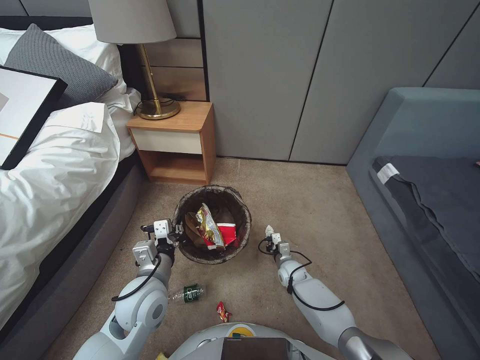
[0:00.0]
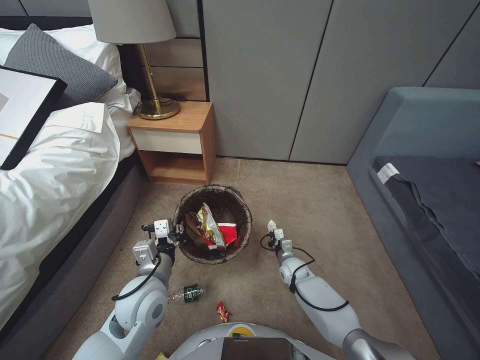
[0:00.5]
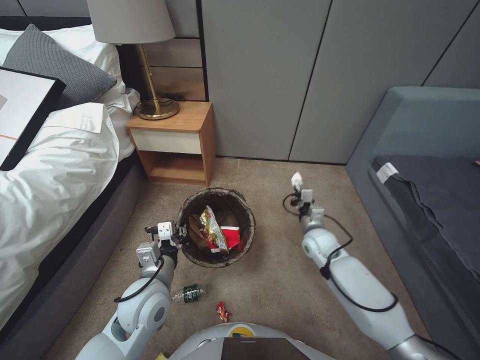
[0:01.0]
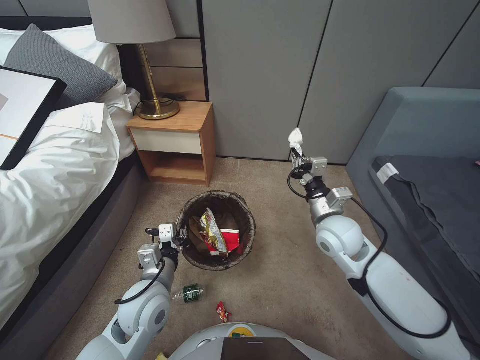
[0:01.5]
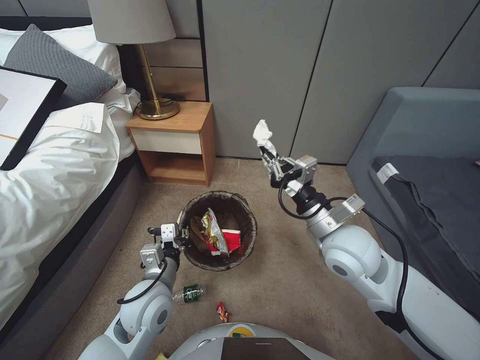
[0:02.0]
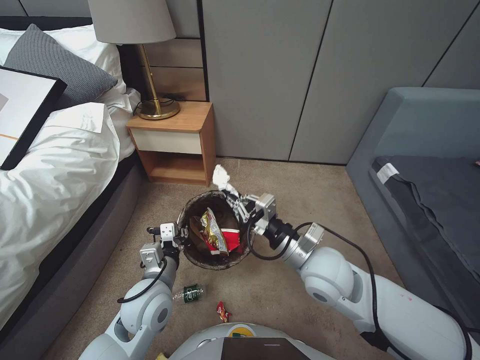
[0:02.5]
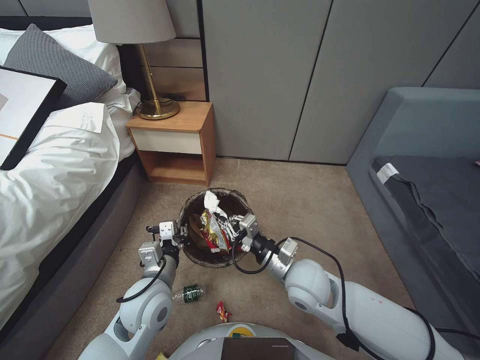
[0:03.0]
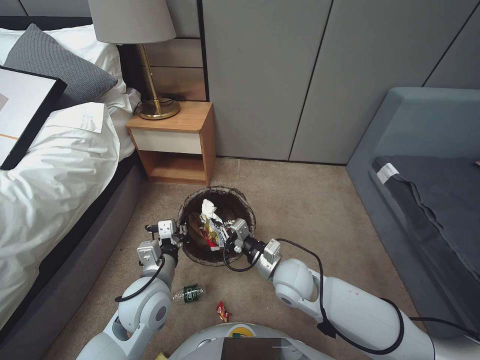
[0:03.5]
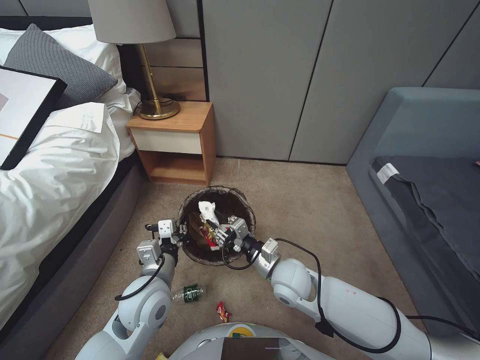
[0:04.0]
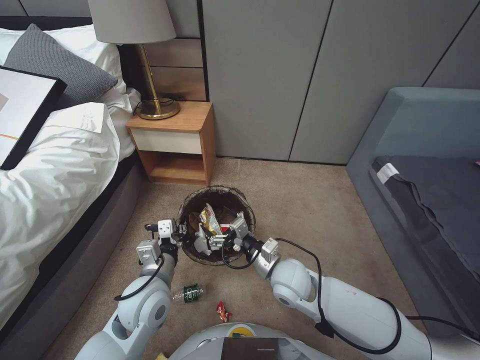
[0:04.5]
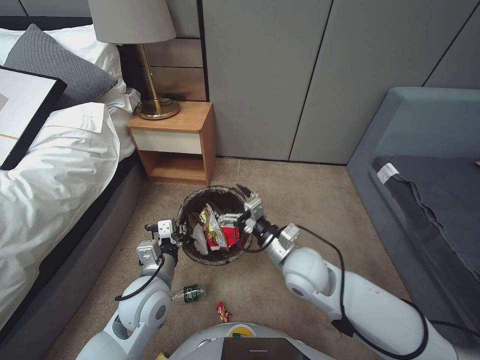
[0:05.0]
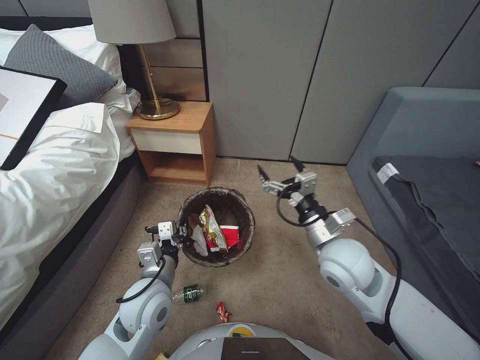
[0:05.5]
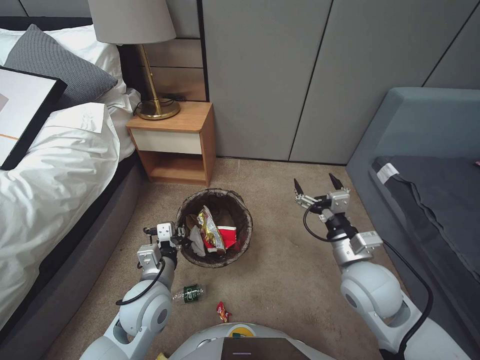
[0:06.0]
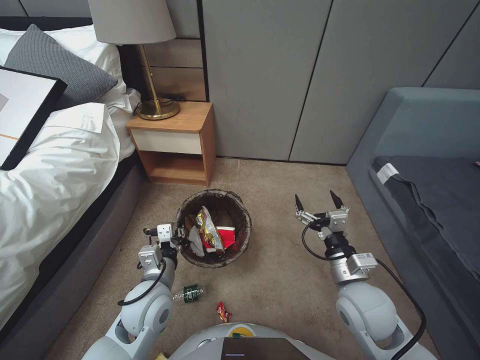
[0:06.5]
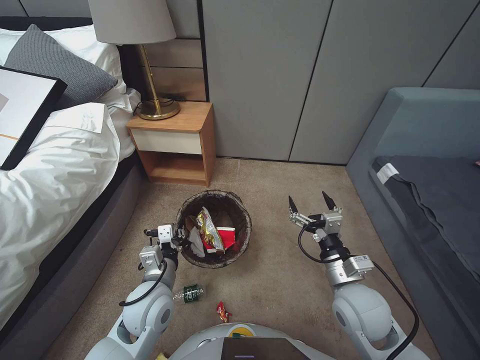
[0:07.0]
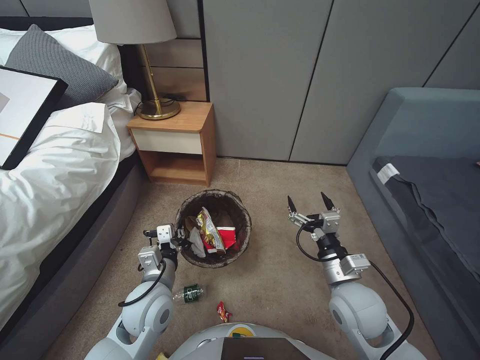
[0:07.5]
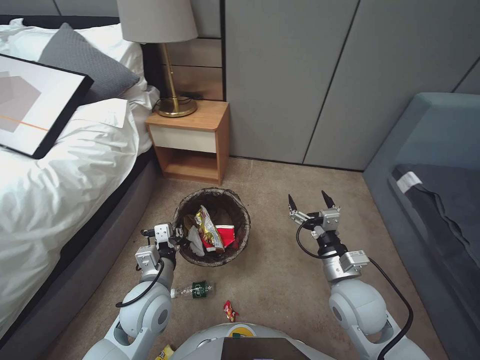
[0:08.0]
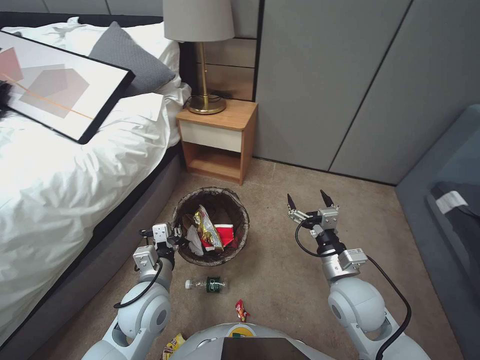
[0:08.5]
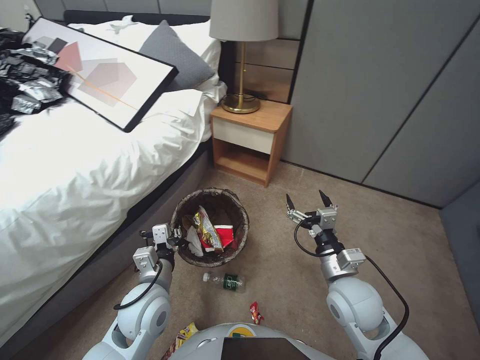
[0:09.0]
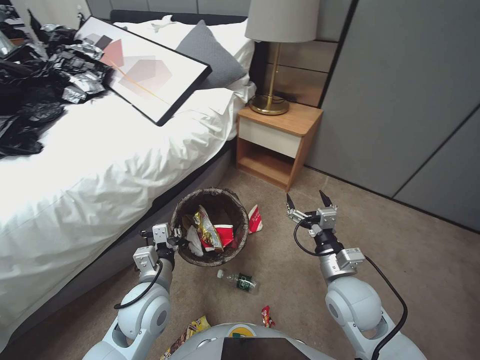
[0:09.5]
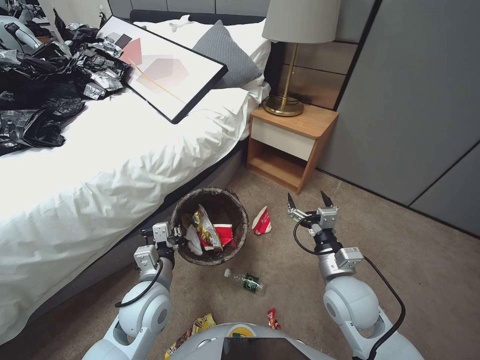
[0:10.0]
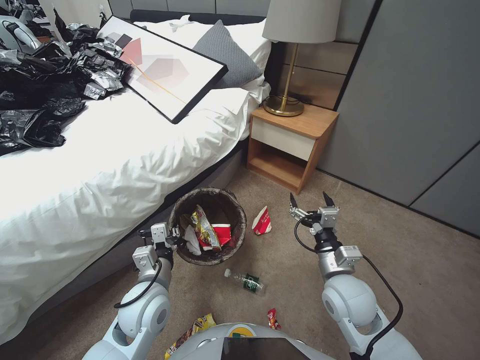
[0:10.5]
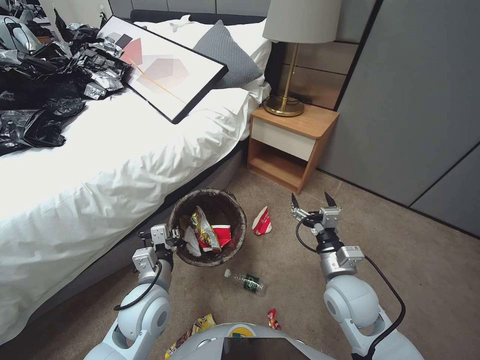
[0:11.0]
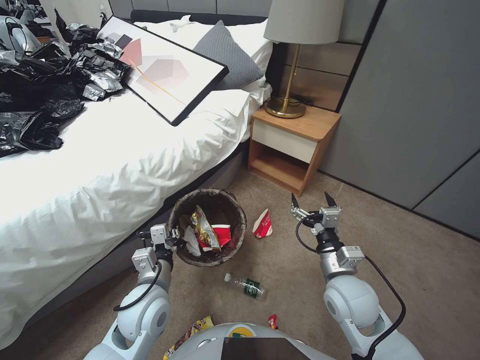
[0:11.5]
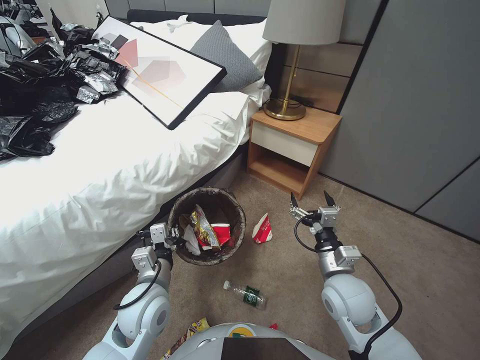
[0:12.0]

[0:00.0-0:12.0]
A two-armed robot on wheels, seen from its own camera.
Task of the whole recording: Pick up the trash bin, then pick up the garbage from the floor and place it into the trash bin.
0:00.0 to 0:02.0: The right gripper is displaced upward by approximately 40 cm.
0:02.0 to 0:04.0: The right gripper travels downward and to the left by approximately 20 cm.
0:04.0 to 0:06.0: The right gripper shifts roughly 15 cm to the right and upward, and opens.
0:06.0 to 0:08.0: The right gripper is displaced downward by about 5 cm.
0:10.0 to 0:12.0: Both grippers stay about where they are.

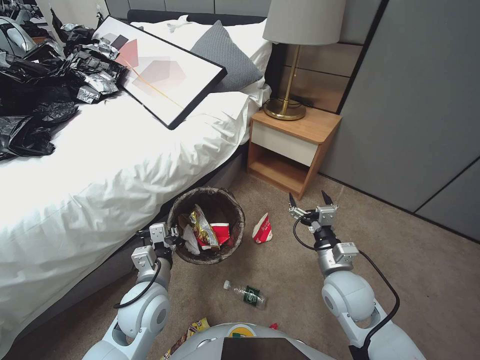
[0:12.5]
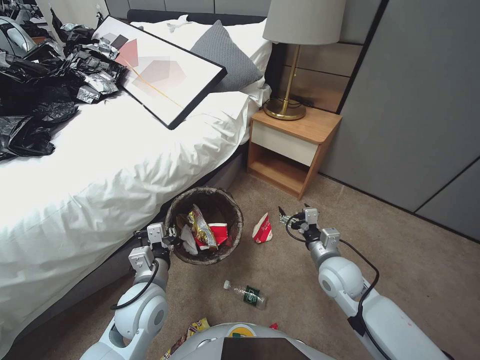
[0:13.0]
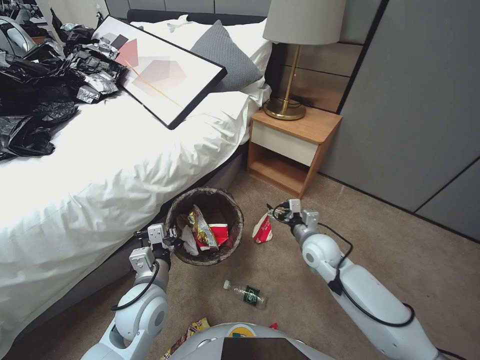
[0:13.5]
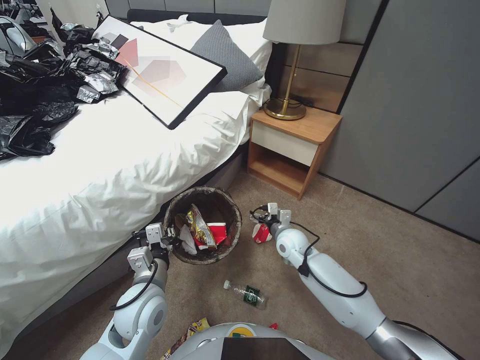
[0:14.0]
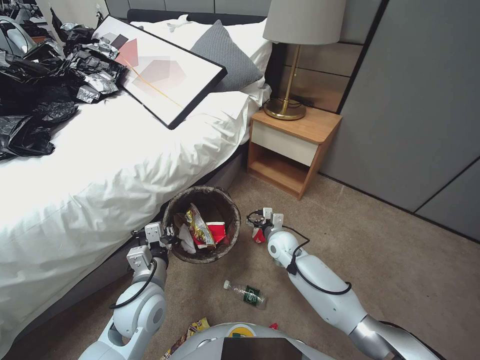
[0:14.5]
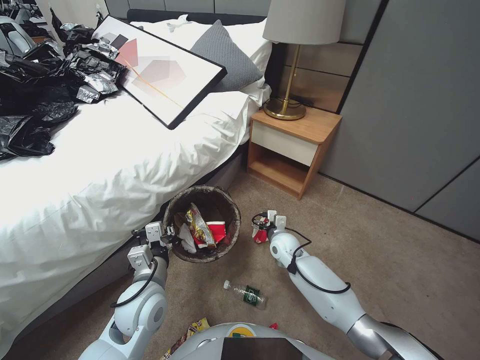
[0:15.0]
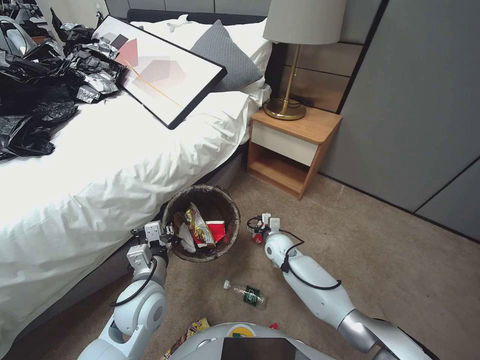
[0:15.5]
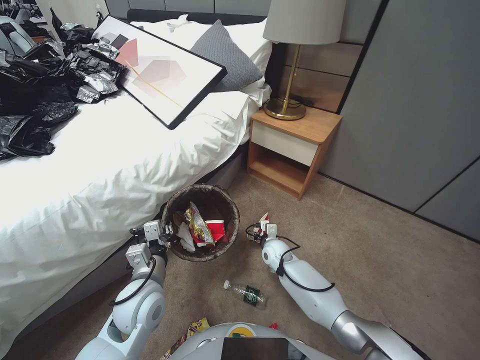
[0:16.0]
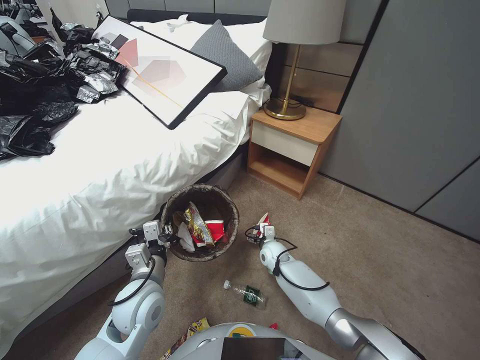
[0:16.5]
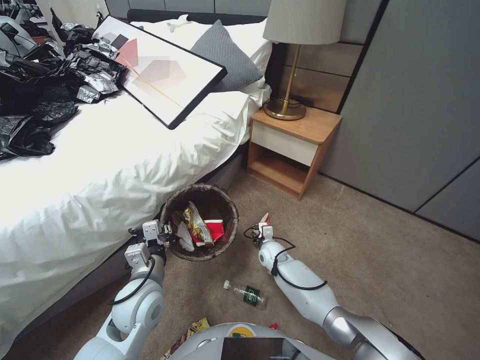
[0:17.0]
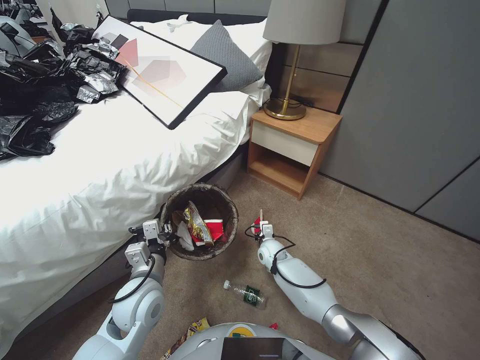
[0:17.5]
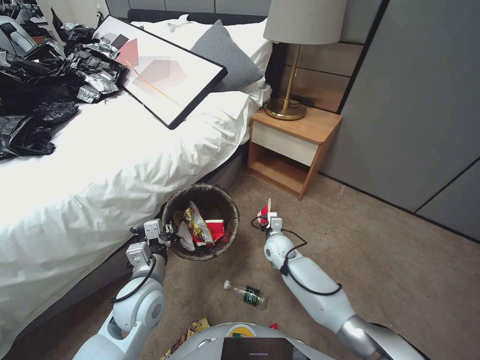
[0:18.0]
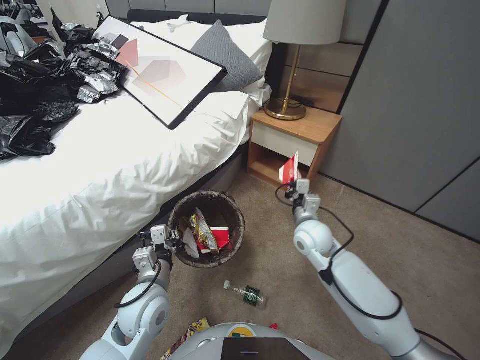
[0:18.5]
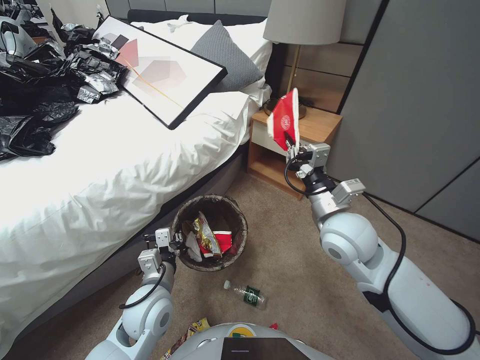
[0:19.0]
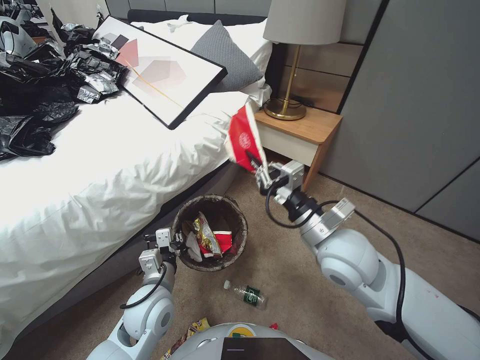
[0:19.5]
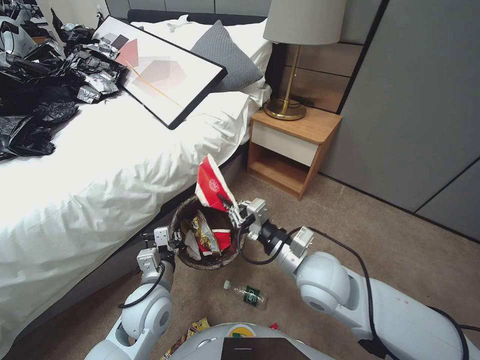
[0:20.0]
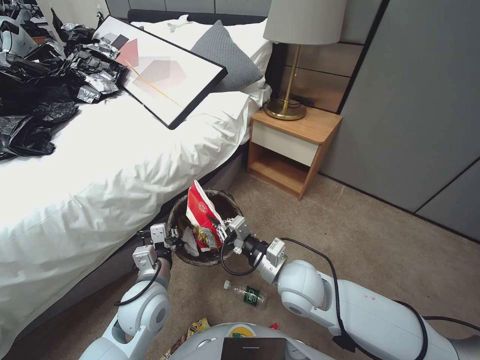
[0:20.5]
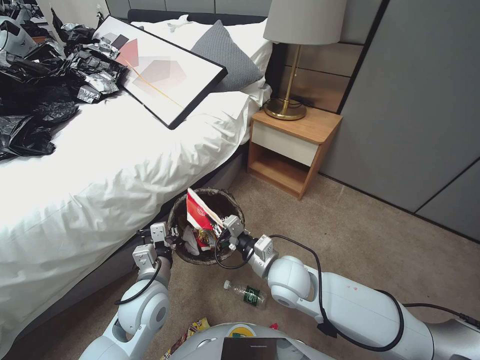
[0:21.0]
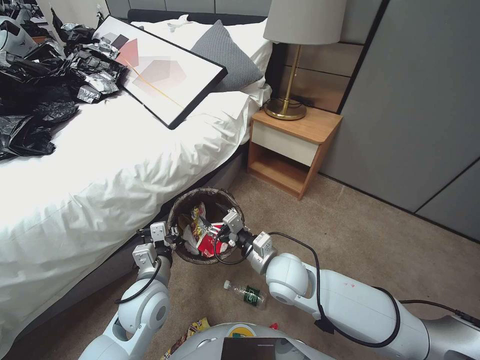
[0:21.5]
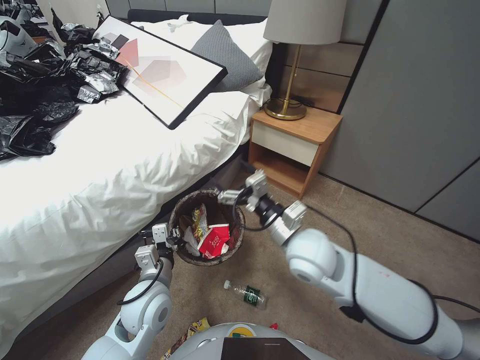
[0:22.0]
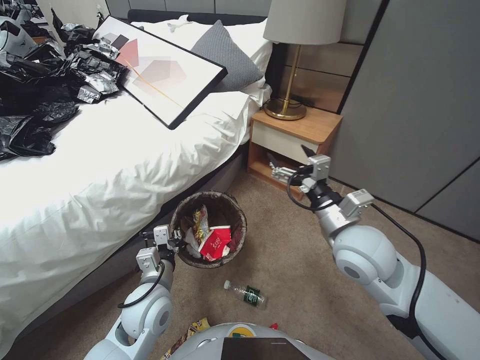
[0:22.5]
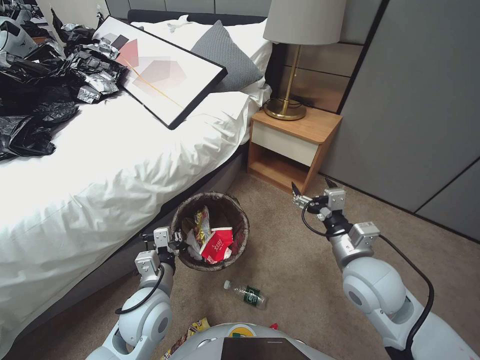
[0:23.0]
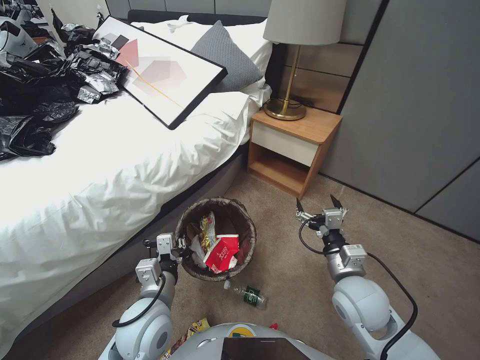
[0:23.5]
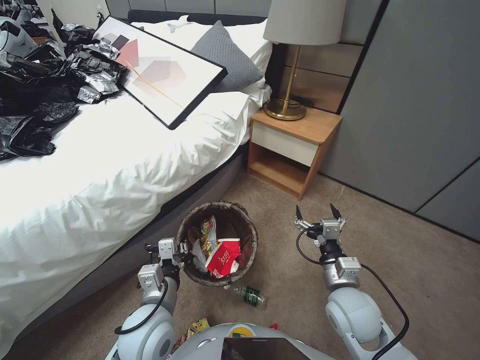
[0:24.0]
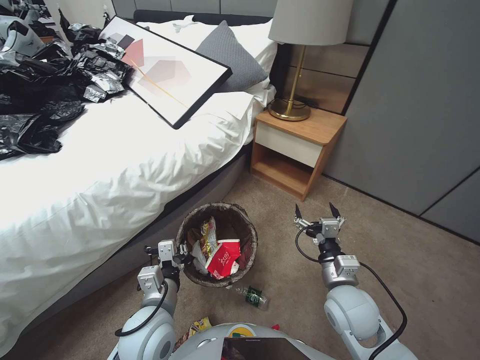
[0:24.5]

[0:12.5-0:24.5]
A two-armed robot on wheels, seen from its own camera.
Task of the whole recording: Pick up the trash bin, then pick up the garbage from the floor and place it into the trash bin.
0:12.5 to 0:14.5: The right gripper moves forward, downward and to the left, roughly 20 cm.
0:14.5 to 0:16.5: The right gripper heads downward, covering roughly 10 cm.
0:16.5 to 0:18.5: The right gripper heads upward, covering roughly 15 cm, and closes.
0:18.5 to 0:20.5: The right gripper heads backward, upward and to the left, covering some 20 cm.
0:20.5 to 0:22.5: The right gripper shifts roughly 10 cm upward and to the right, and opens.
0:22.5 to 0:24.5: The right gripper heads downward and backward, covering approximately 15 cm, while the left gripper shifts by approximately 5 cm.

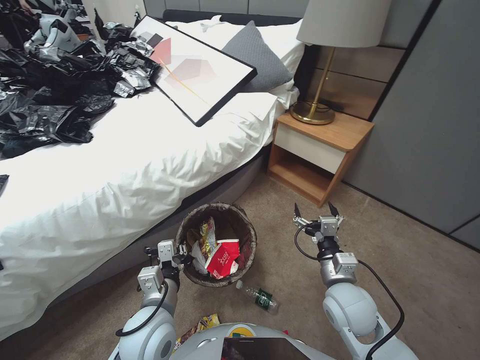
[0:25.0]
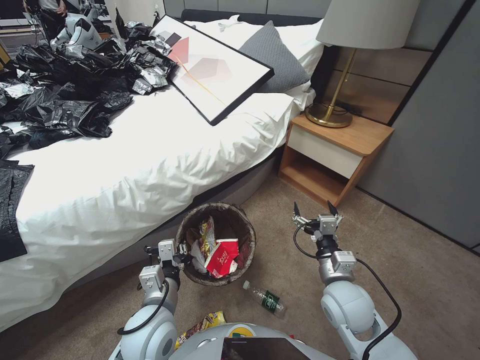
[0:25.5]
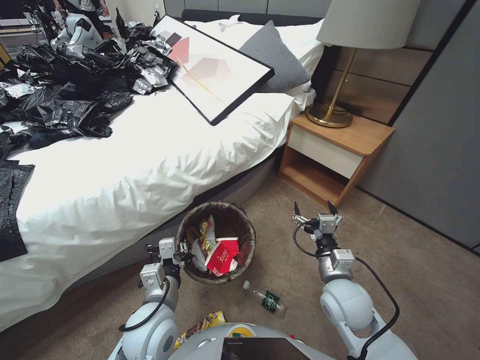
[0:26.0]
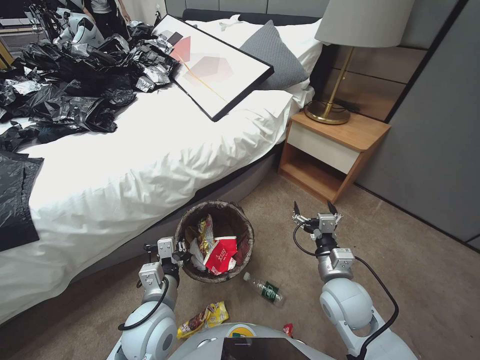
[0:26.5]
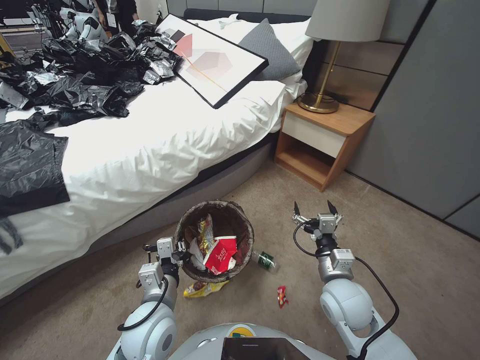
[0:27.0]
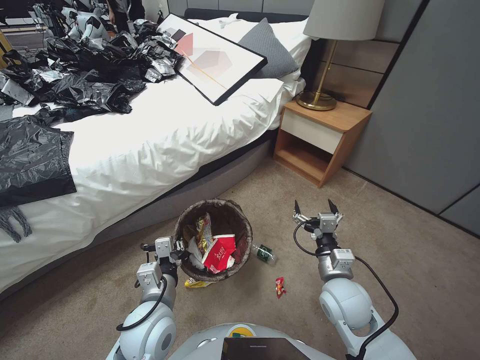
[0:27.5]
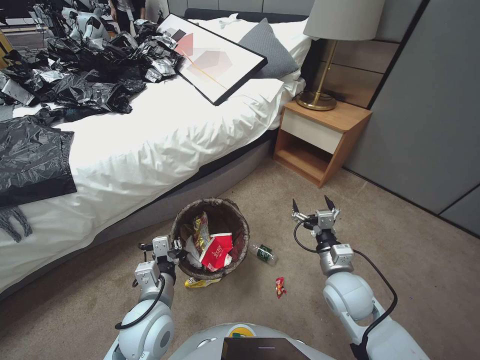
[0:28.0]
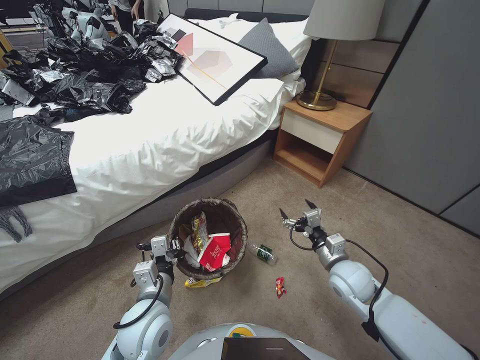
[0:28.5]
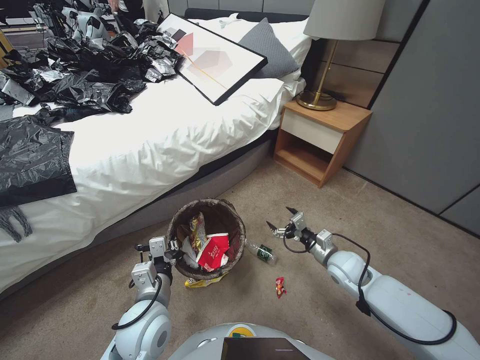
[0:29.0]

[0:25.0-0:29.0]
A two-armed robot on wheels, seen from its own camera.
Task of the whole recording: Pick up the trash bin, then pick up the garbage from the floor and place it into the trash bin.
0:27.0 to 0:29.0: The right gripper is displaced forward and to the right by approximately 10 cm.
